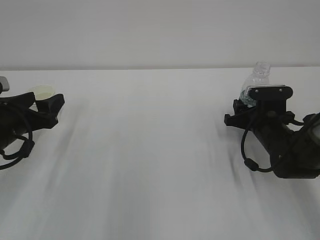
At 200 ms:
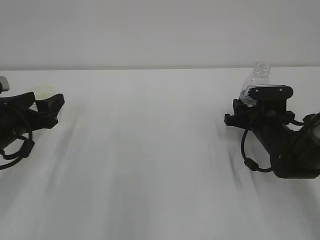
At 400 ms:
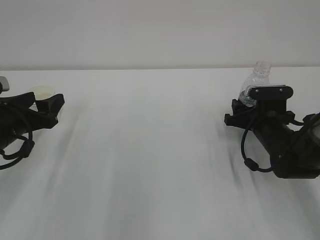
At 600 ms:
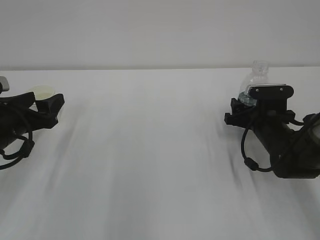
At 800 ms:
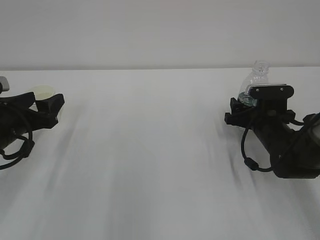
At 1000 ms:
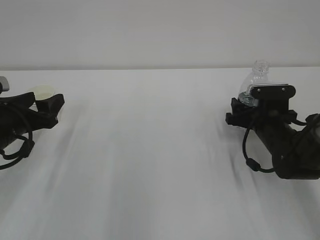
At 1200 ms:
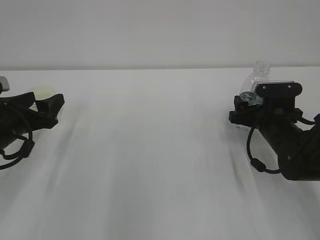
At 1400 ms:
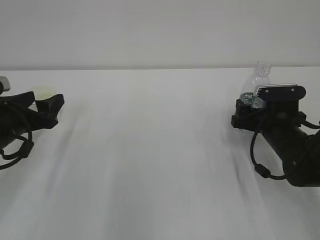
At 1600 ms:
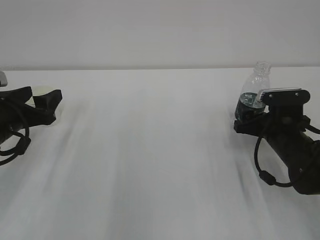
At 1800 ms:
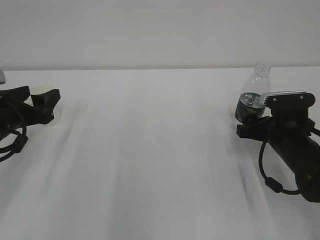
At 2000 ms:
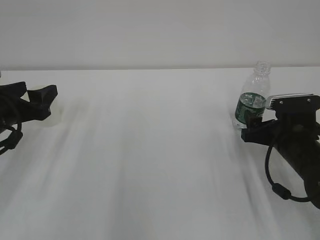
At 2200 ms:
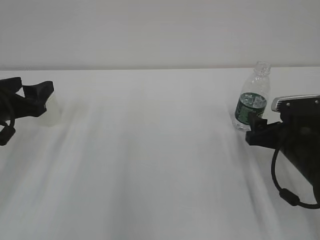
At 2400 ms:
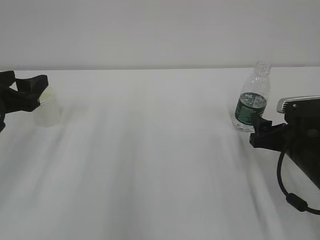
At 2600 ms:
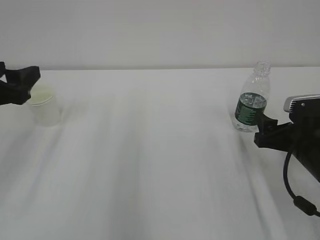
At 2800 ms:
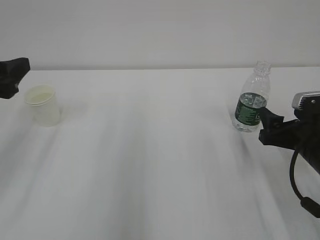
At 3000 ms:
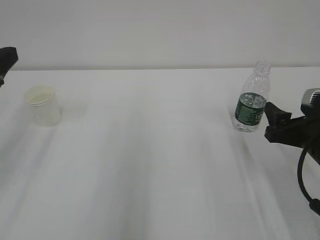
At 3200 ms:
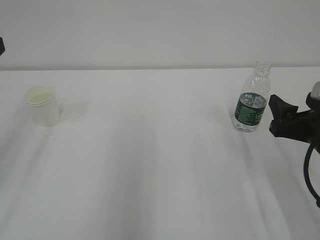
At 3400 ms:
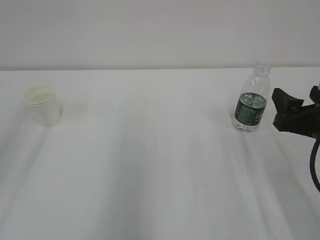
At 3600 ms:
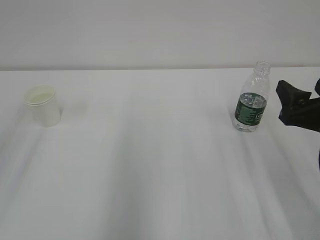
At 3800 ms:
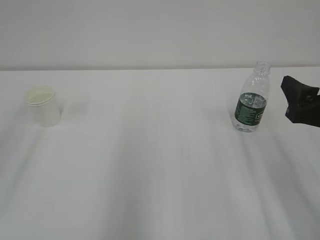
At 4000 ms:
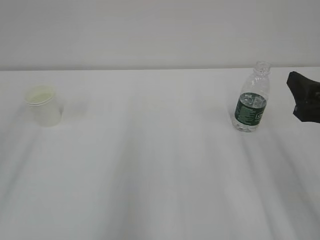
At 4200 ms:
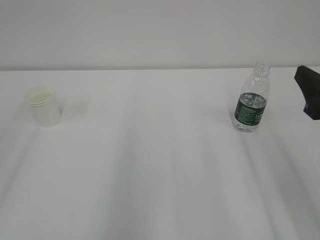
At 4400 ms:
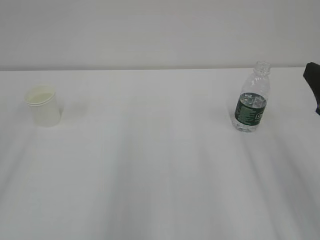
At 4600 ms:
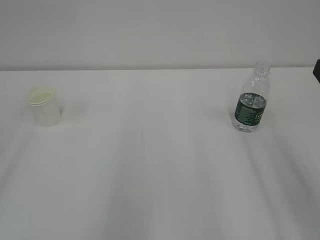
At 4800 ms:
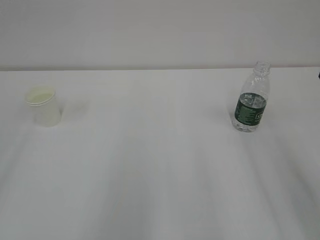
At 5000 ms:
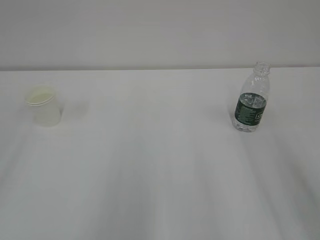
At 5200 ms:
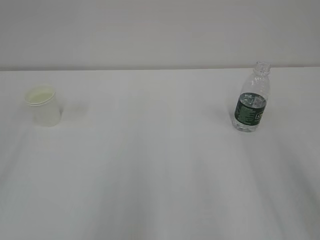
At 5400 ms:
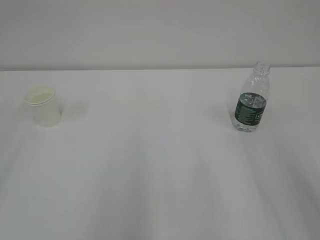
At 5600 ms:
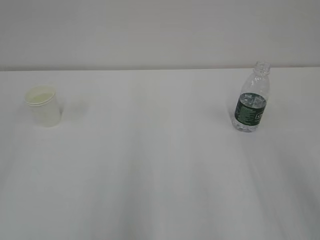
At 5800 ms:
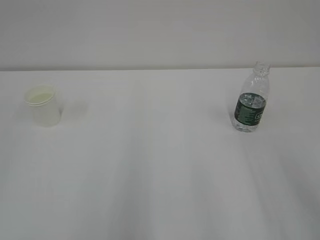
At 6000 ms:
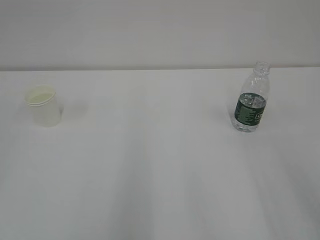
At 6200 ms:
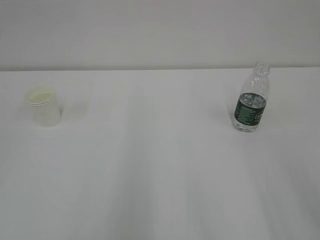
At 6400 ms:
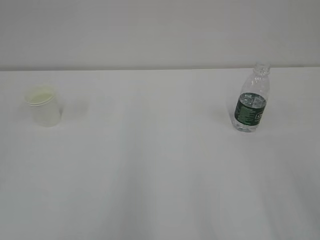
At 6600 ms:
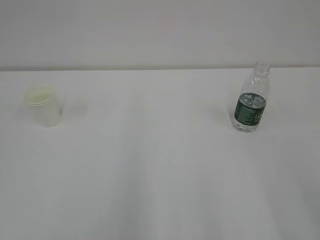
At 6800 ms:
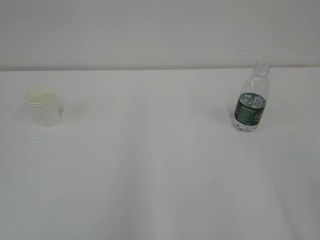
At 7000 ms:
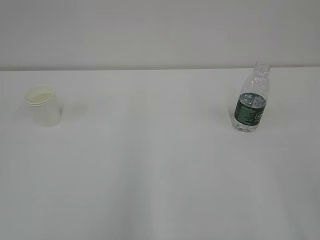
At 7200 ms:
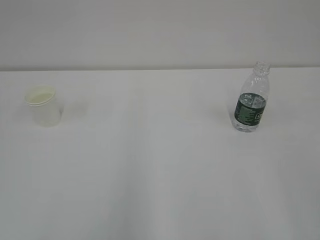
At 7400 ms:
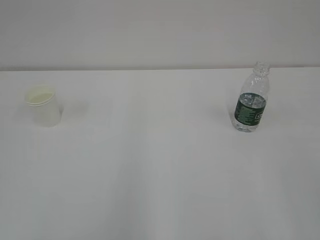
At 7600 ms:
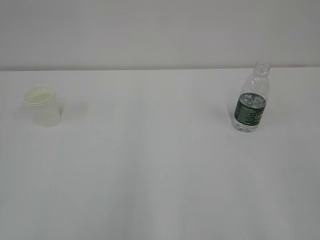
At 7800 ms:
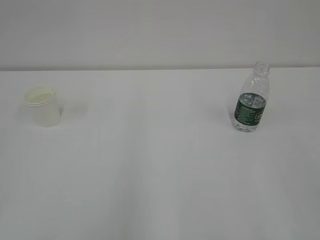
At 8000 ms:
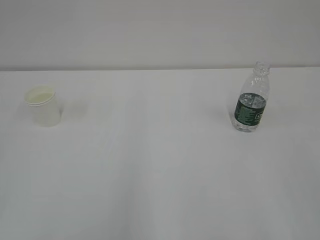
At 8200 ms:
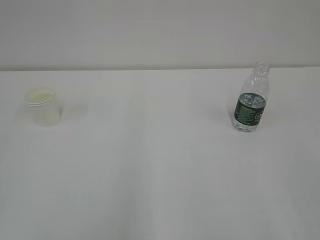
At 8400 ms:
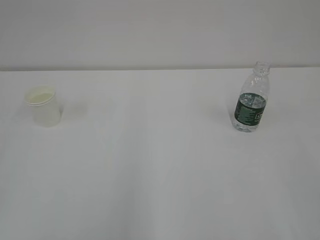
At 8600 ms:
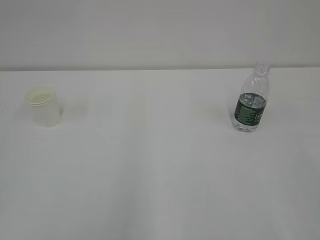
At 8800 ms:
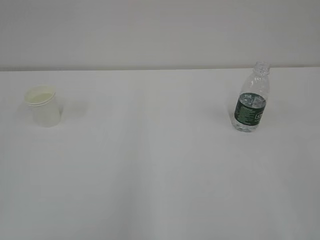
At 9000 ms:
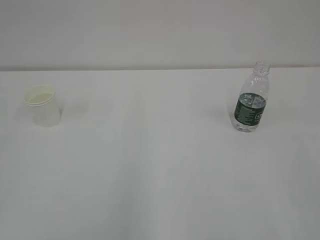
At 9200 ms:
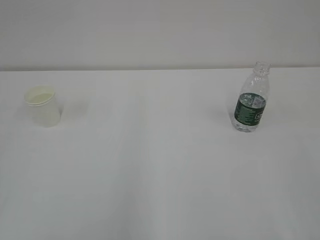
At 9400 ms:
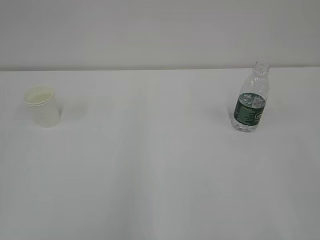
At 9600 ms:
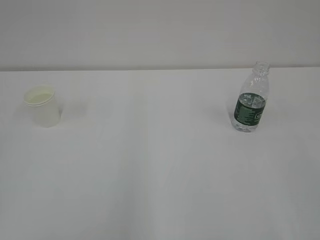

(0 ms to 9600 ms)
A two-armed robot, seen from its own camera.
0 ms - 1600 ms: The right gripper opens its fingers.
1600 ms - 3200 ms: The left gripper shifts about 15 cm upward and backward; the right gripper is displaced backward and upward by about 10 cm.
3200 ms - 4800 ms: The right gripper is displaced upward and backward by roughly 15 cm.

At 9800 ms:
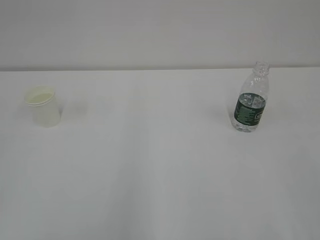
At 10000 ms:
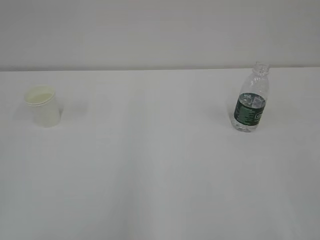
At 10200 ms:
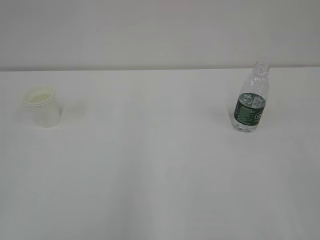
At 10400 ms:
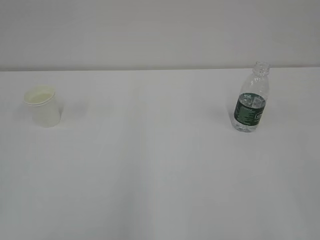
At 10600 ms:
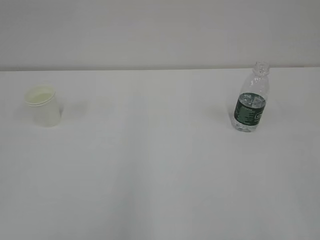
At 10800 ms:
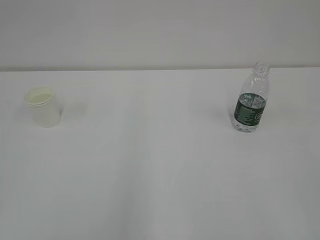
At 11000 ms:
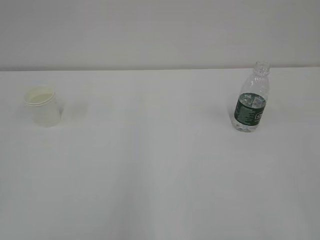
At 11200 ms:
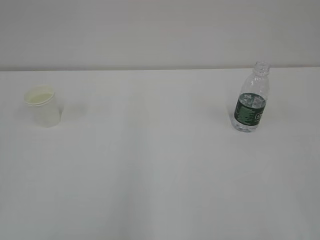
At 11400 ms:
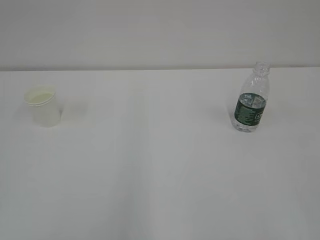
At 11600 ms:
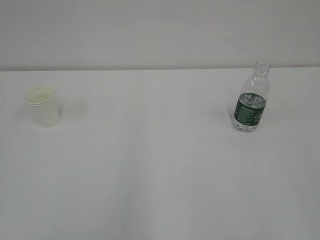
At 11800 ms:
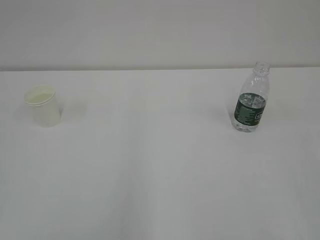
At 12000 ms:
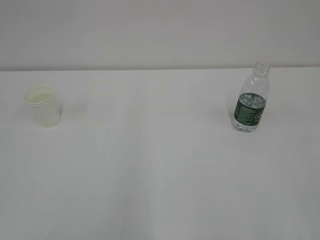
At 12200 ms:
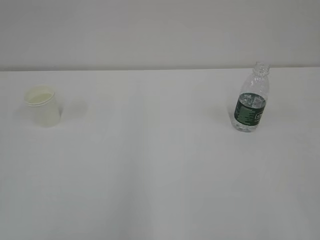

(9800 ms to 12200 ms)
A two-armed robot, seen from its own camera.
11000 ms - 12200 ms: Both grippers stay about where they are.
